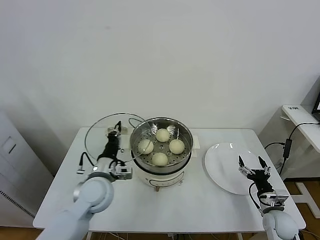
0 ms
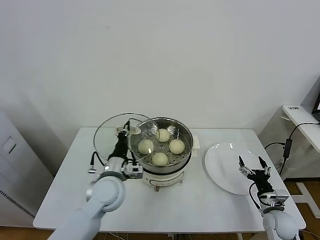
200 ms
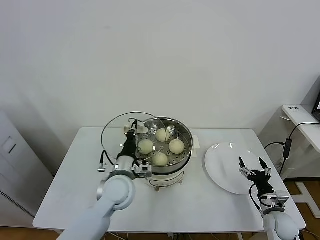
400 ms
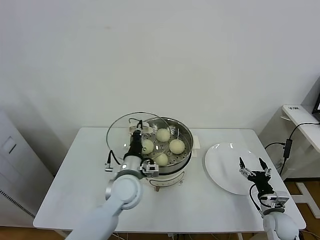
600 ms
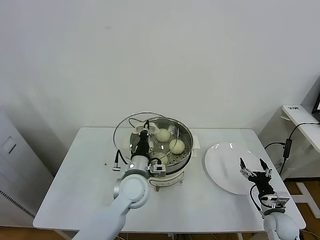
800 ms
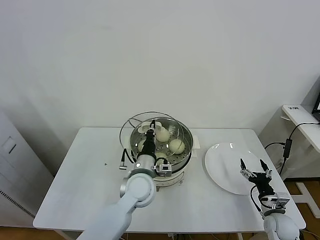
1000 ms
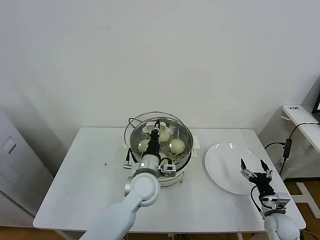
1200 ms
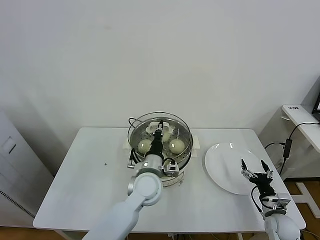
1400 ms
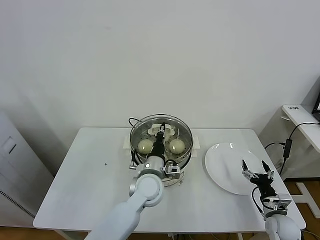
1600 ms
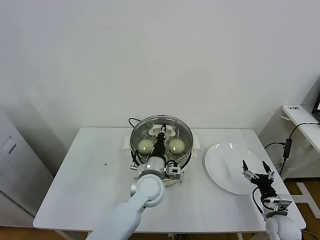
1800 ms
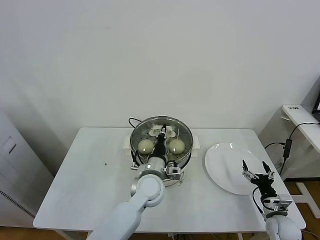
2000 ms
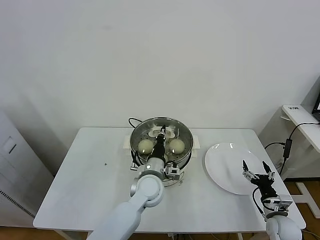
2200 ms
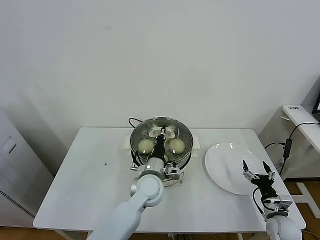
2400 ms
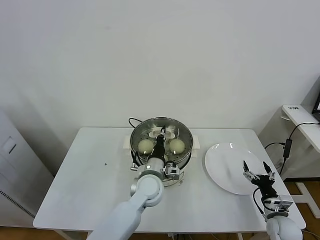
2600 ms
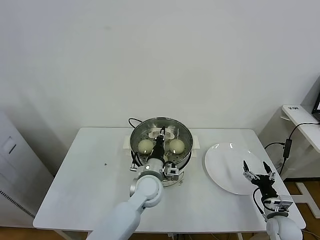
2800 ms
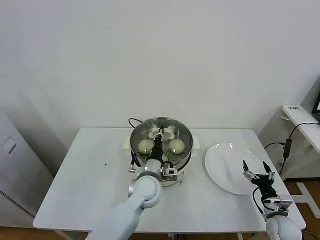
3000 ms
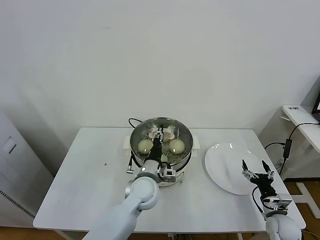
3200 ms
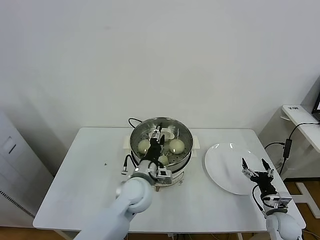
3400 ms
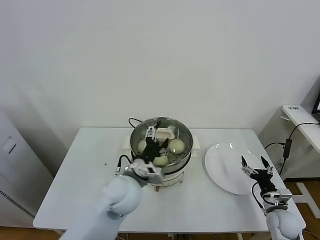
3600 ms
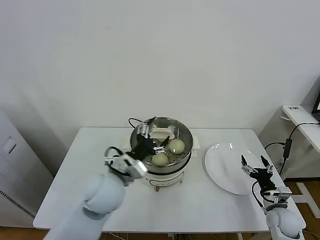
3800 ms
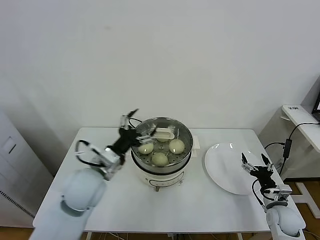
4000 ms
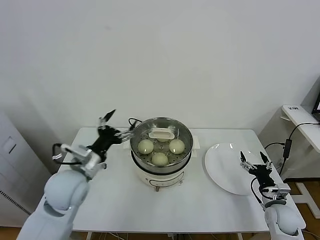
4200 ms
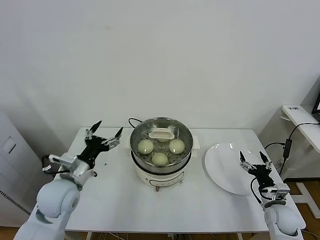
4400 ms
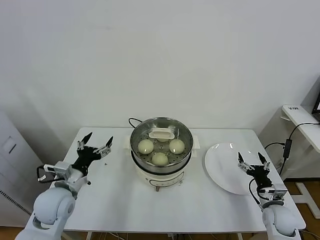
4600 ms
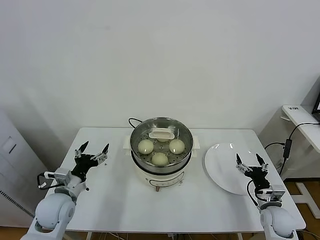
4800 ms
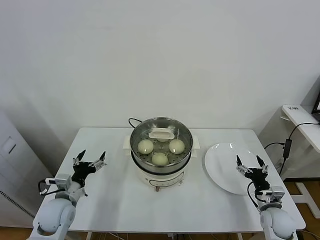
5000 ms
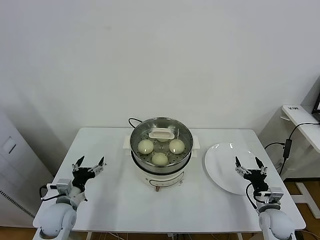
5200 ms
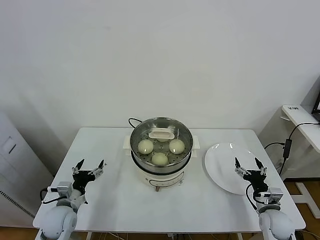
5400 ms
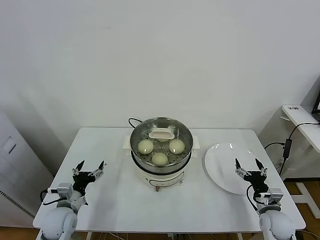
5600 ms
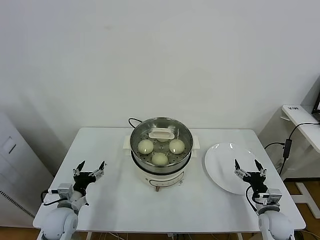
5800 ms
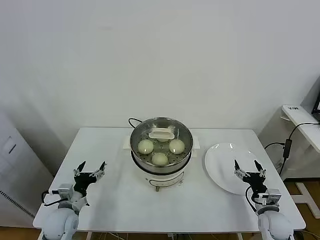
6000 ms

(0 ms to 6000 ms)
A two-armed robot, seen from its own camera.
Task of the whole recording: take steamed baozi put them in steamer.
Step, 0 ms - 3600 ms: Place the pot lid on the steamer with left gripper.
0 ms - 1600 ms: The left gripper moves to the right, some 15 cm.
1600 ms - 3000 ms: The grippers stay close to where they were, moving slightly.
3000 ms - 4400 ms: The left gripper travels to the left and upward by some 25 cm, and opens up.
4400 ms - 6000 ms: The left gripper moves downward, approximately 15 cm.

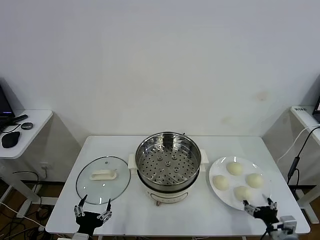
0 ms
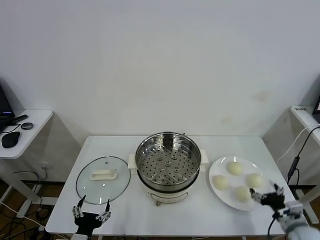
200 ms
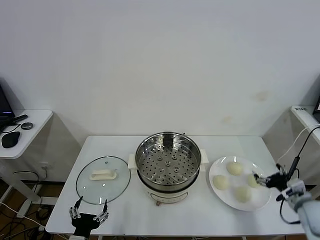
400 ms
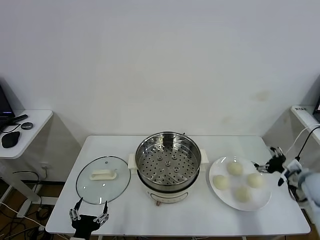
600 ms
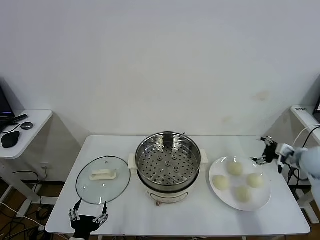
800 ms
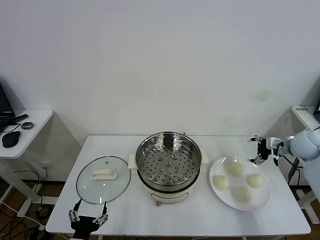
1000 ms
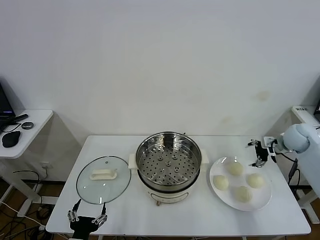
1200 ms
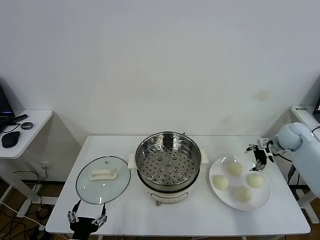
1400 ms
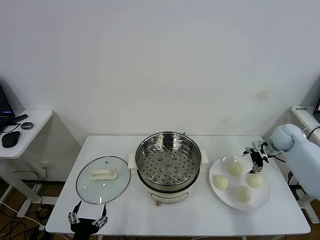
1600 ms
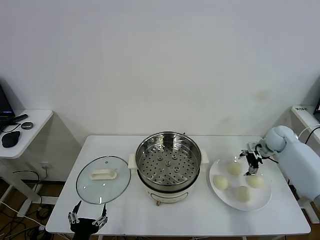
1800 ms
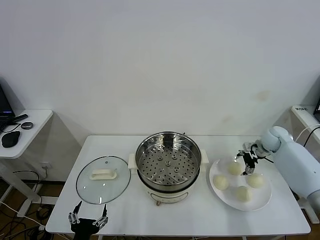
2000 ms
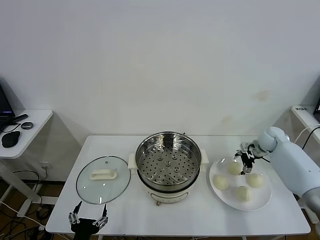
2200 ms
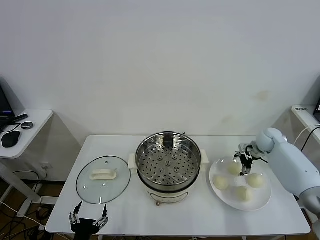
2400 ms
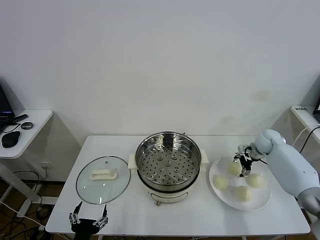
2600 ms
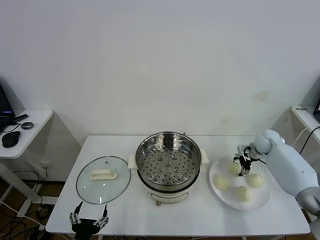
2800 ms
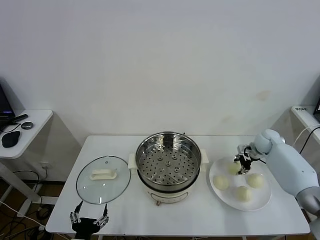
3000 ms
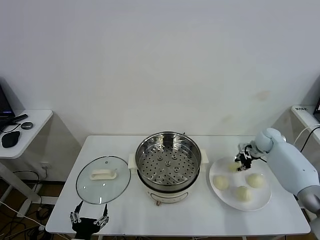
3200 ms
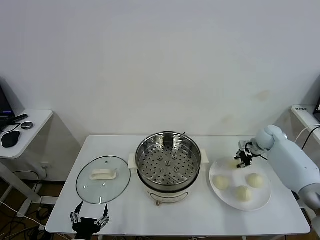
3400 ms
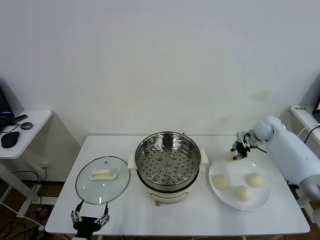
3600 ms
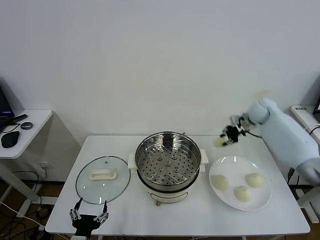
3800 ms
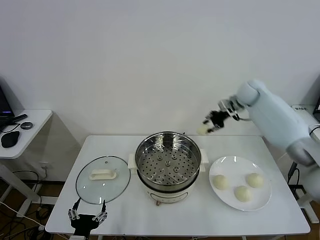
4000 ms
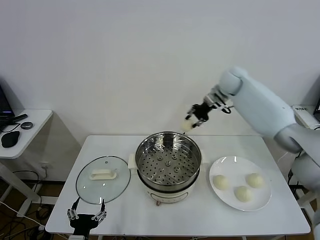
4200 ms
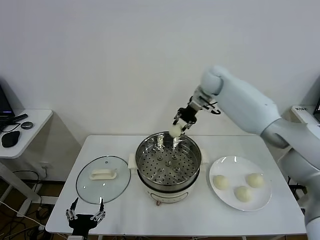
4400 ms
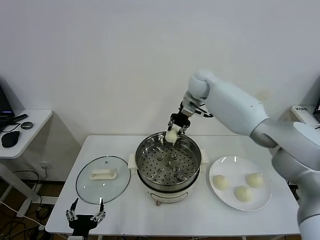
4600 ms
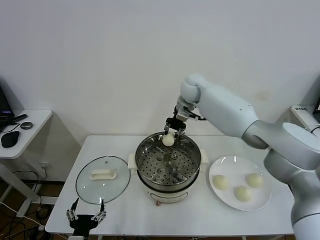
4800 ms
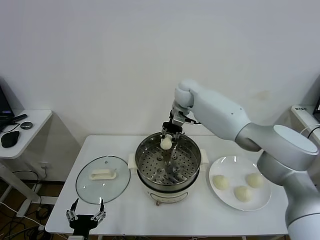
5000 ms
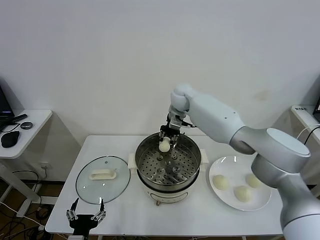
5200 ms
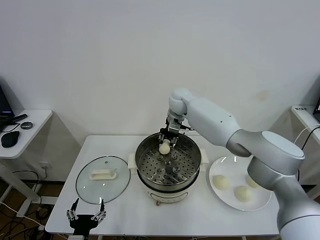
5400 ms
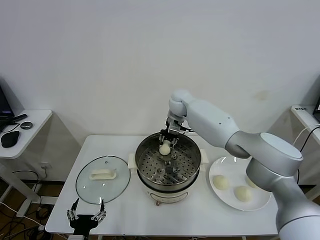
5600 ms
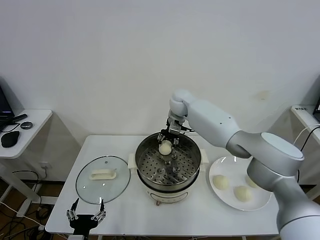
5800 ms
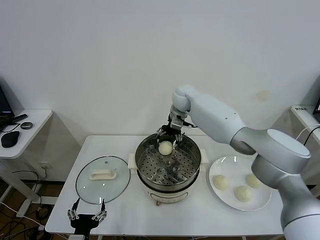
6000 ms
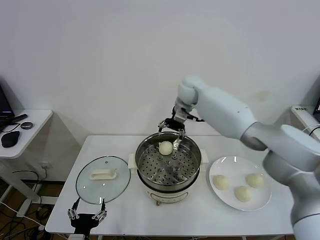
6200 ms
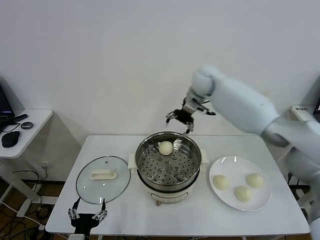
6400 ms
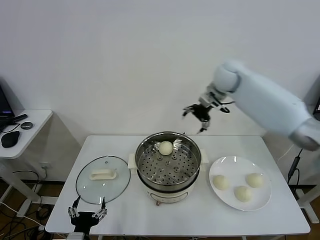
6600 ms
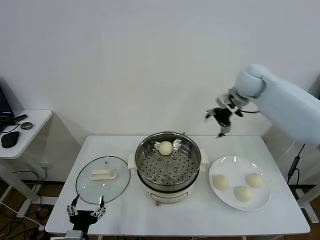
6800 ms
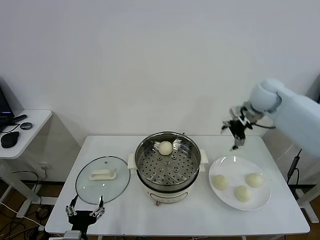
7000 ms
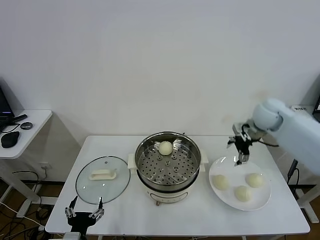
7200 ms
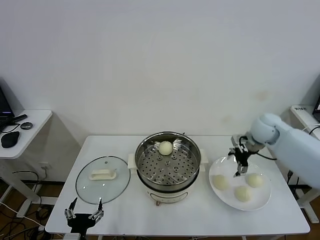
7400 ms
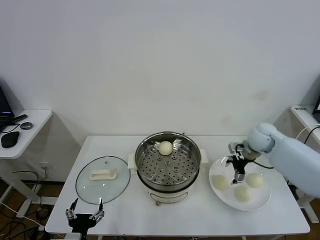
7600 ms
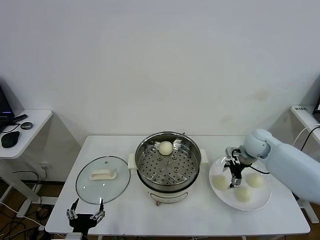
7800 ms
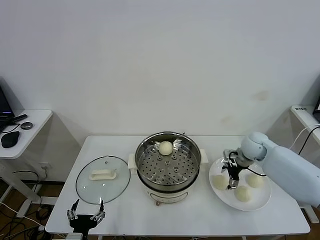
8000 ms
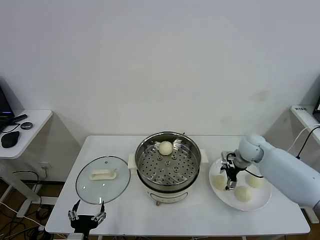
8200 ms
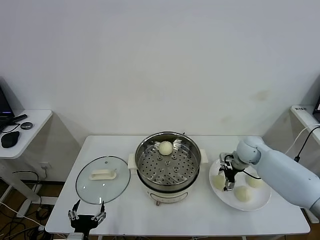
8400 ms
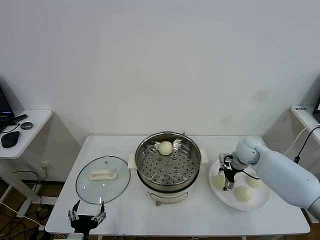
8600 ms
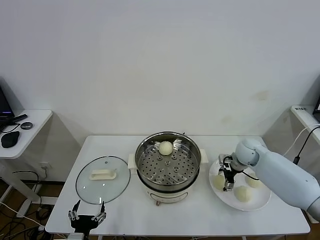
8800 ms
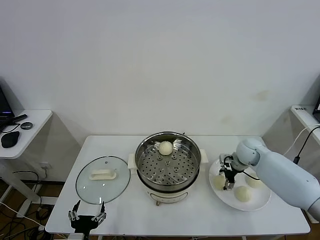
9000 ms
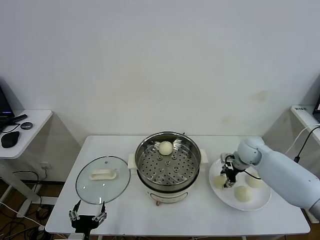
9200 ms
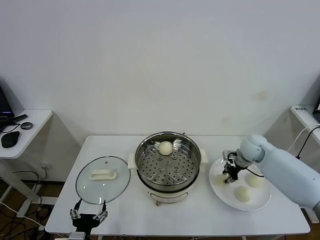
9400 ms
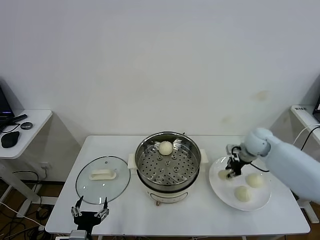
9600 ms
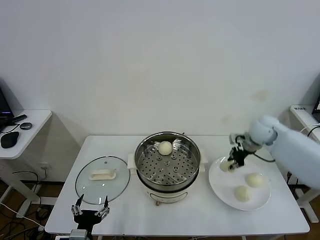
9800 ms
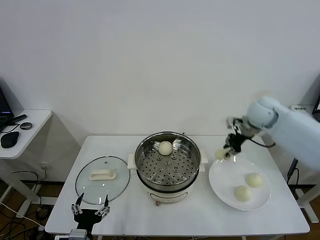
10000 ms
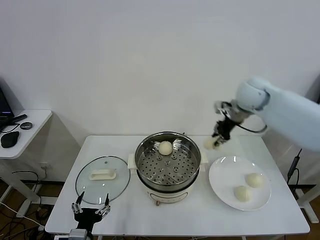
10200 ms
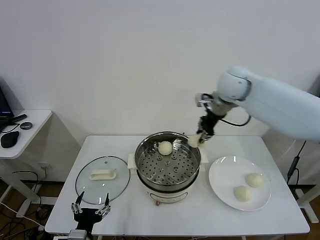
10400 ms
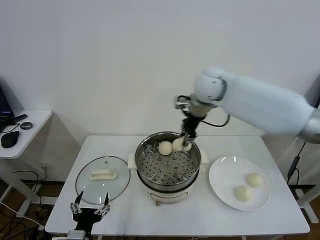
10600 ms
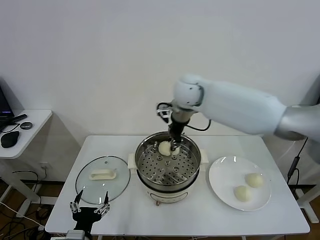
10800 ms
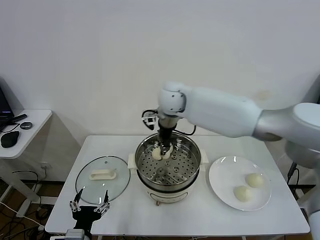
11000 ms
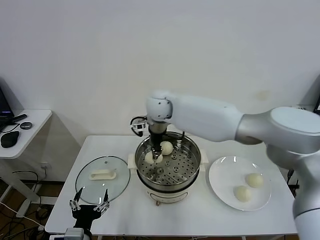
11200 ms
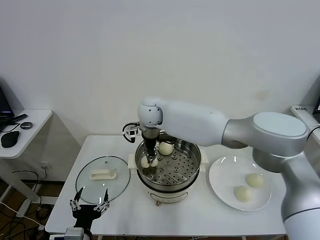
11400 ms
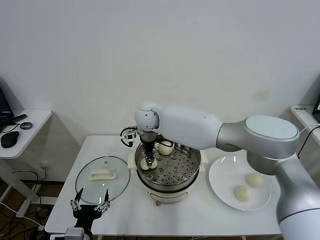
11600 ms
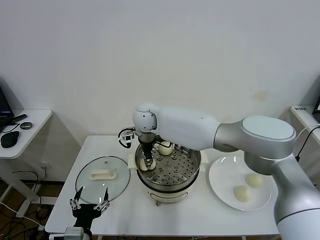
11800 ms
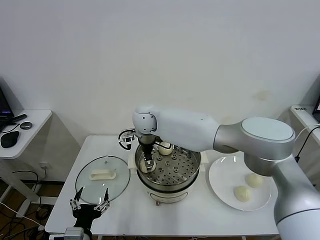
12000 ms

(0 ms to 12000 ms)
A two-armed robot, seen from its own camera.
Task of the whole recording: take steamed baozi put them in steamer.
Step, 0 ms - 2800 ms: Grasp the baozi in the plate with right gripper.
Step, 3000 ms - 6000 ms: Place the baozi on the steamer with right gripper.
Step, 6200 ms - 9200 ms: Grasp the baozi in the plate with right gripper.
1600 ms - 3000 ms: The right gripper goes roughly 5 cm downward, and closes.
3000 ms - 4400 ms: The right gripper goes approximately 35 cm to the left and upward, and closes.
4400 ms - 6000 ms: The right gripper goes some 10 cm to the left and downward, and opens.
6000 ms - 7600 ms: The right gripper shifts roughly 30 cm to the right and backward.
7600 ms - 9000 ms: The right gripper heads downward, covering about 10 cm.
9000 ms - 10400 ms: The right gripper travels upward and to the left by approximately 30 cm, and closes up.
10400 ms - 12000 ms: The right gripper moves to the left and downward, some 30 cm, and opens its fingers.

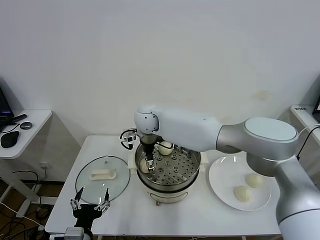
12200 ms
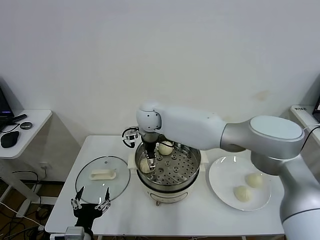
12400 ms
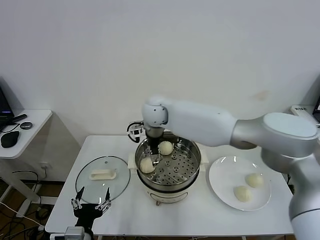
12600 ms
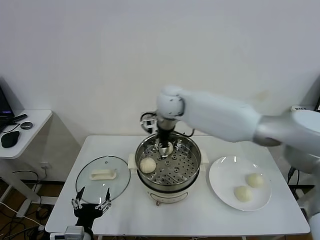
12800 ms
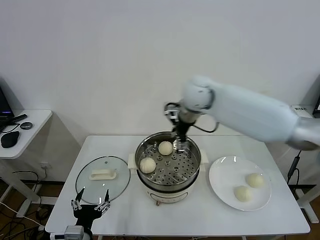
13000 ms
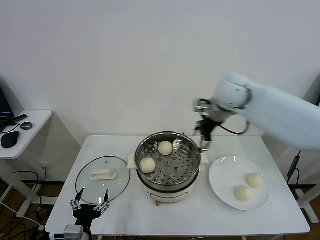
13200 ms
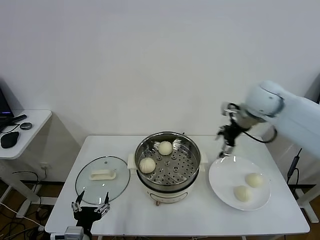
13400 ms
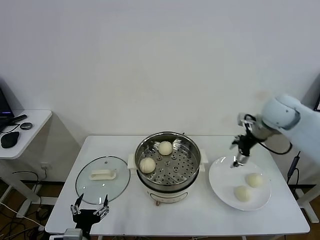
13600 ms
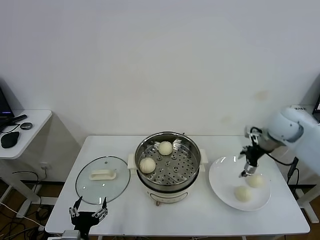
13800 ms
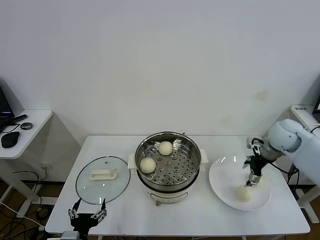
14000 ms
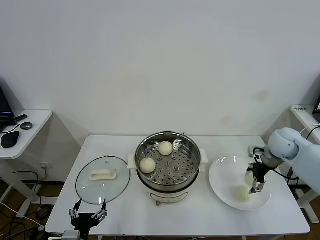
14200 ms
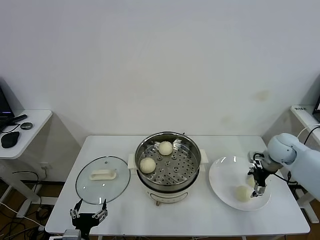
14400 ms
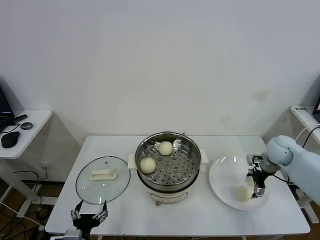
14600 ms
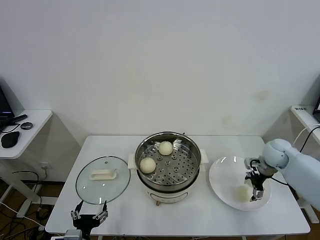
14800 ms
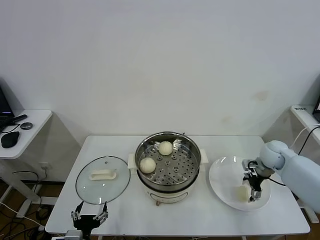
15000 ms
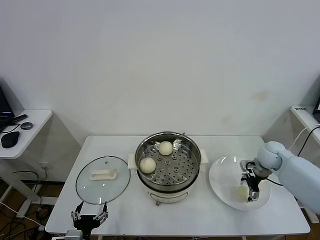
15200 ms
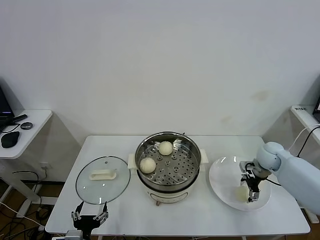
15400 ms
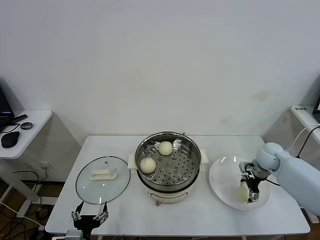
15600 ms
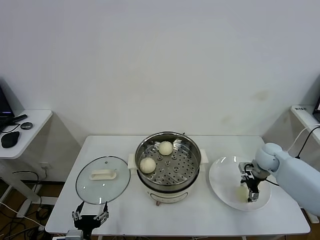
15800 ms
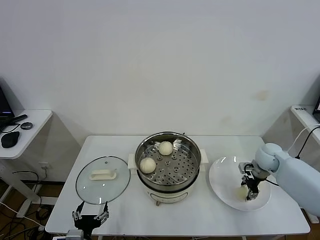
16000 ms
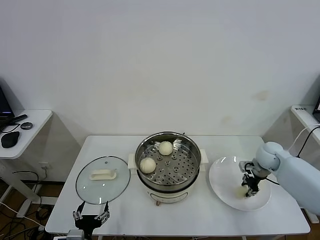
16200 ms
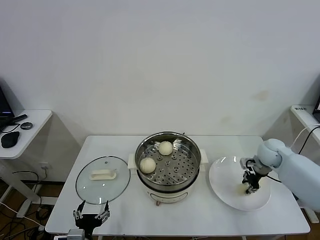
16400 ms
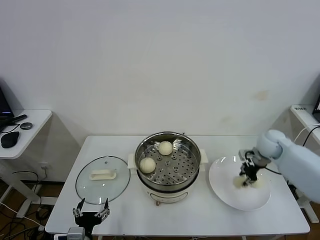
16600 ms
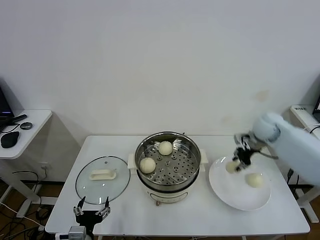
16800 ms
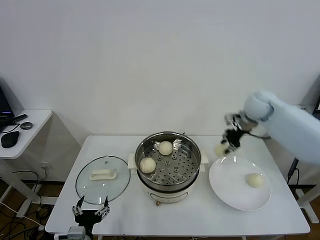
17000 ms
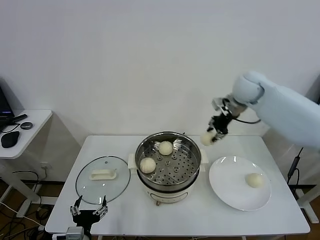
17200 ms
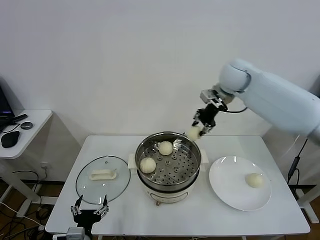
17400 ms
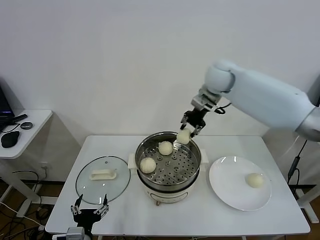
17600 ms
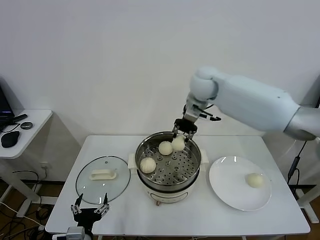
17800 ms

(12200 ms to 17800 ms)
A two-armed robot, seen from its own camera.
Task of the whole recording: take steamed baozi put them in steamer.
Step, 12400 ms - 16000 ms: Grasp the baozi in the plate with right gripper.
12200 ms - 13600 ms: The right gripper heads to the right, covering some 40 cm.
13600 ms - 15000 ms: The right gripper moves downward, about 20 cm.
15000 ms - 16400 ms: The right gripper closes its fingers.
16400 ms - 17800 ms: The right gripper heads to the left and upward, covering approximately 35 cm.
